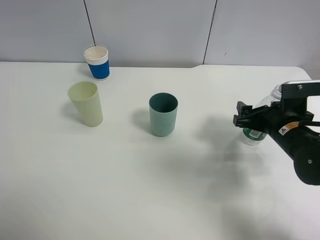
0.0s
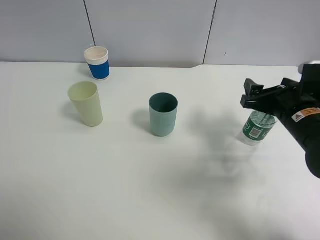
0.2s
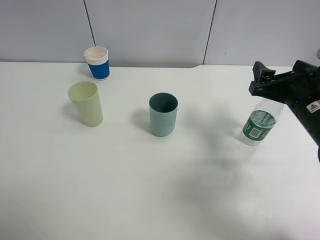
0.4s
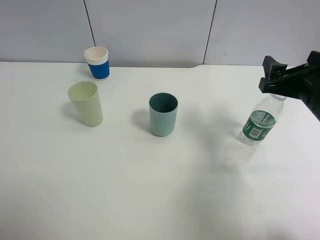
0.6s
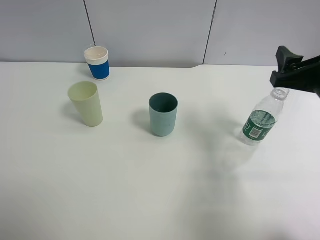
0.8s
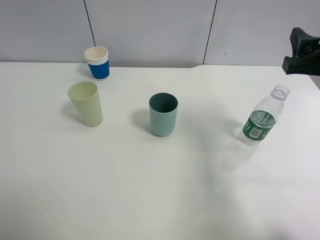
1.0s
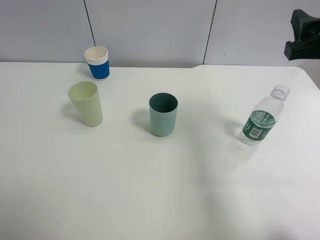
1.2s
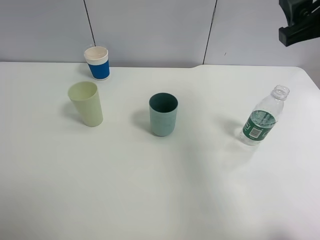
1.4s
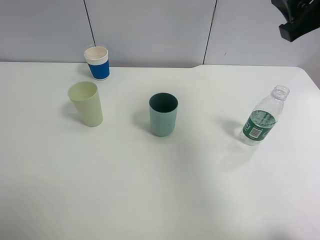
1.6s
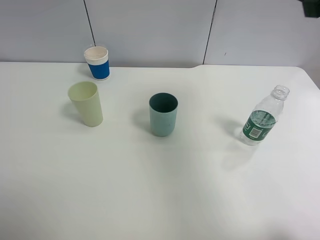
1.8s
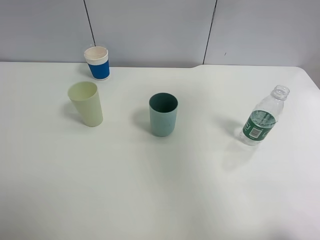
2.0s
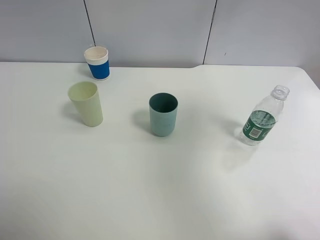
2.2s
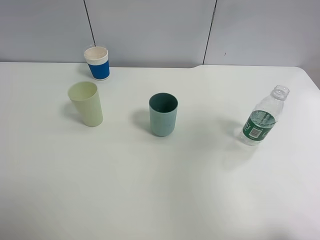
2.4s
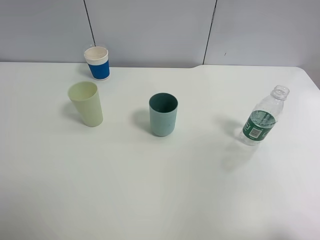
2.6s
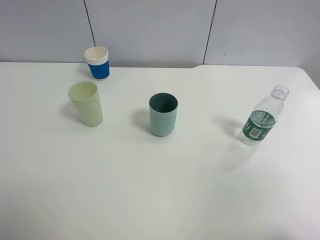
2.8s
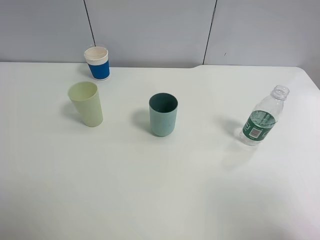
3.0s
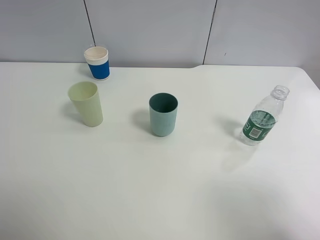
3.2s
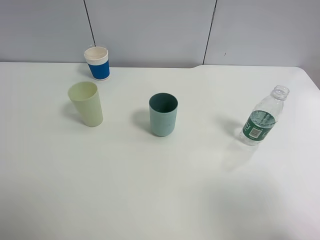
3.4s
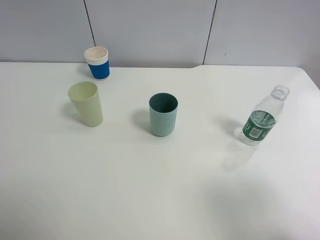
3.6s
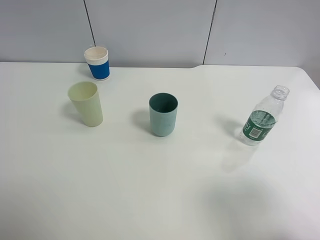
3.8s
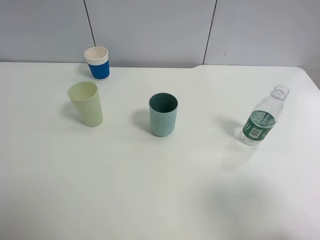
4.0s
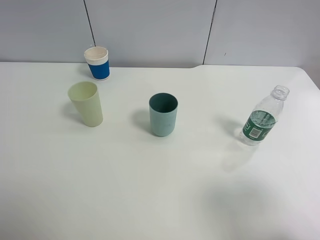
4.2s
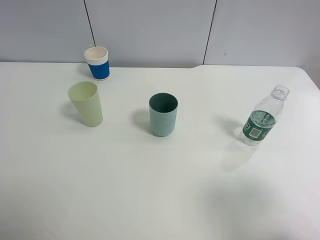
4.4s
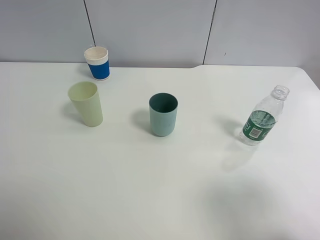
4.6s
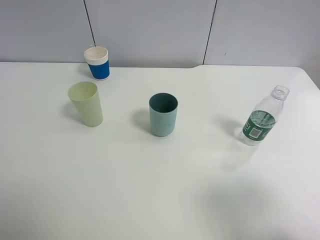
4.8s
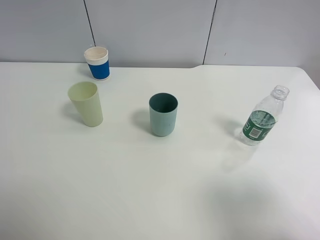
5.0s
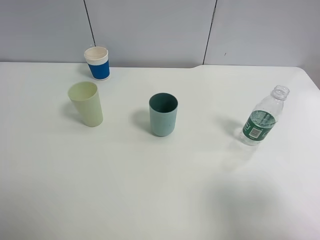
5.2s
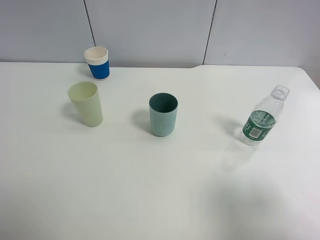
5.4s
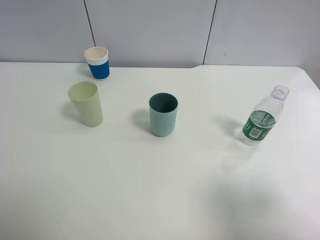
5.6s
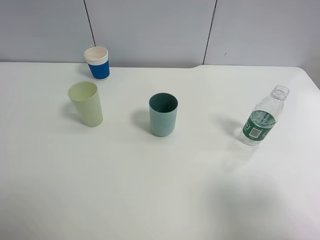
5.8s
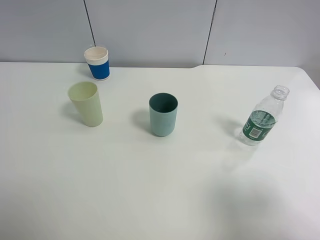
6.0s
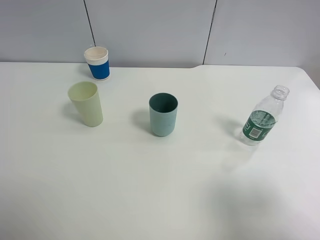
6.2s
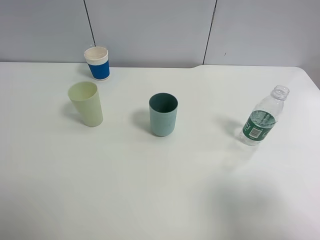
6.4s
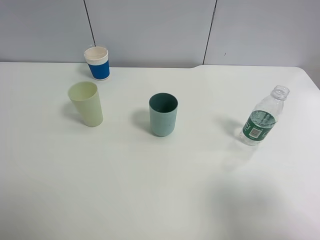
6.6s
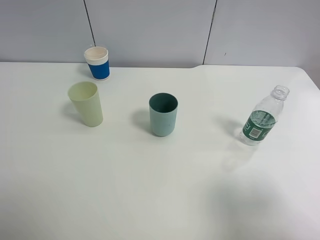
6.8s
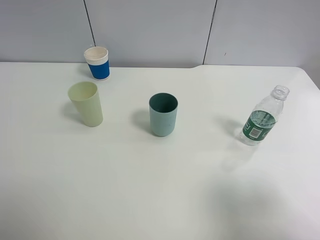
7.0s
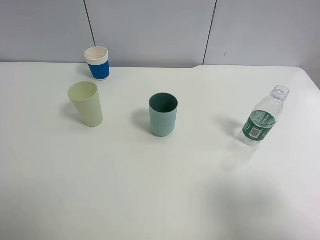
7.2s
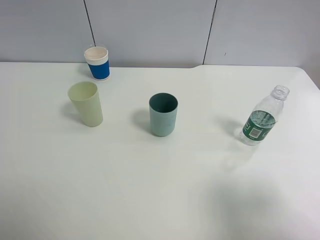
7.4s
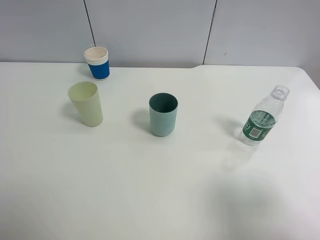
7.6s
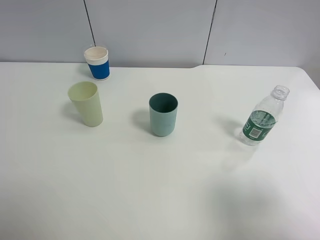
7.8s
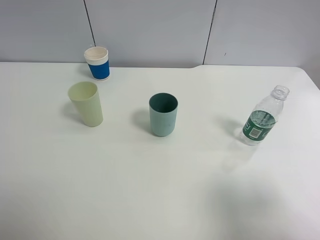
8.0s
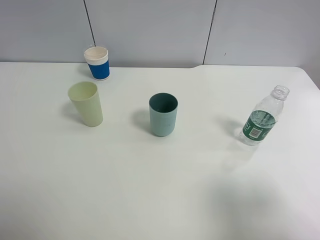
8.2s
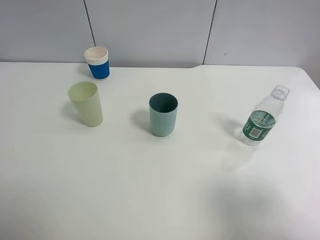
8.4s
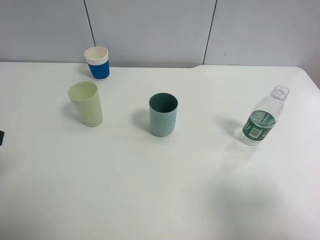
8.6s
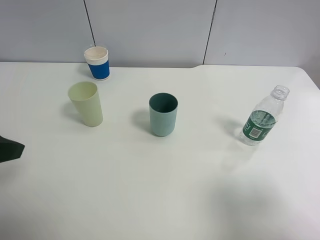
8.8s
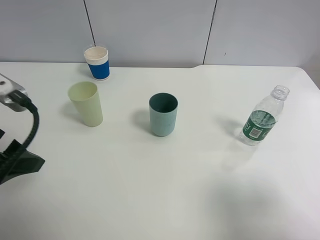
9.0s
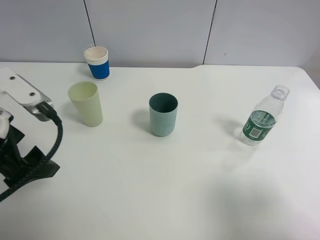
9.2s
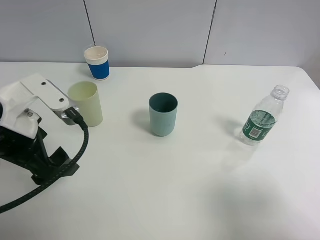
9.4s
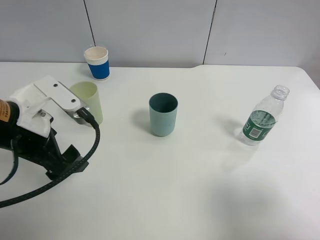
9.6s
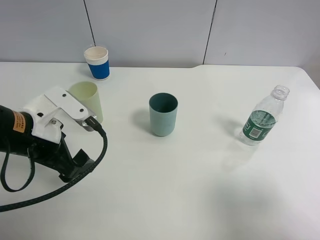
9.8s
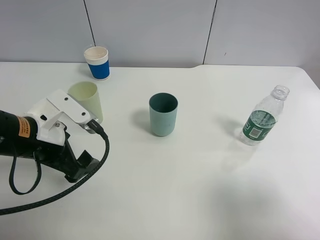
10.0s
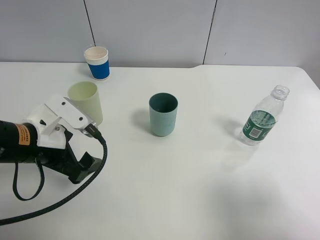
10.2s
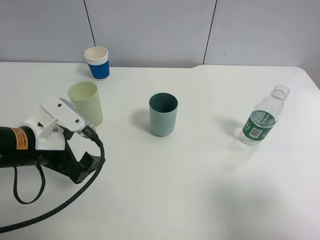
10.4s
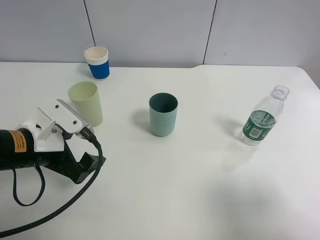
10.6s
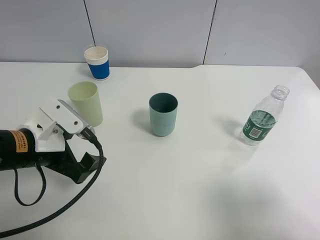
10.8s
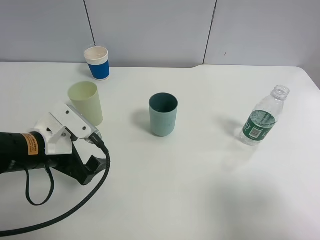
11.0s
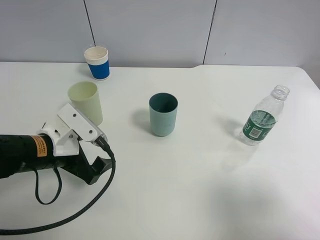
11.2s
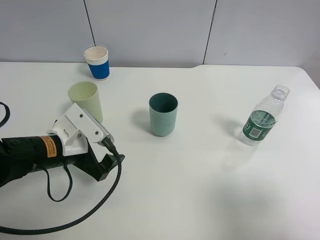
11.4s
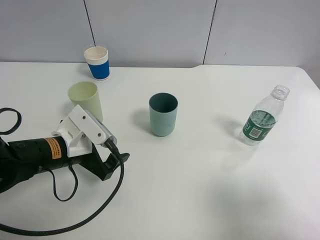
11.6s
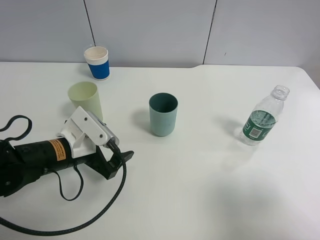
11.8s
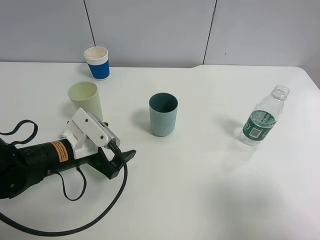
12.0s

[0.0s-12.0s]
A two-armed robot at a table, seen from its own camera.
Task of the whole recording: use a clamp to hold the bottle of the drink, pour the beverage into a random cup, then clamp the cup containing the drink and pour the drink into another random cup.
0.0s to 1.6s: The right gripper shifts some 25 cm upward.
1.6s to 3.0s: The right gripper shifts about 30 cm backward and to the right.
6.0s to 7.6s: Both grippers stay put.
7.6s to 9.0s: The left gripper is displaced forward and to the right by about 15 cm.
9.0s to 10.4s: The left gripper shifts some 10 cm downward.
10.4s to 12.0s: The left gripper moves downward, roughly 5 cm.

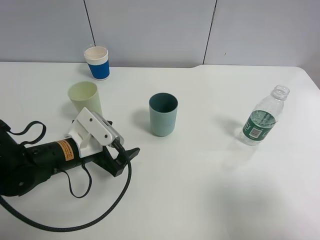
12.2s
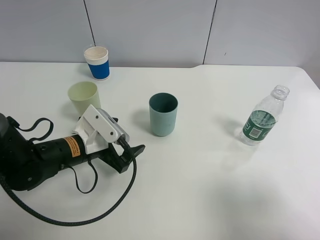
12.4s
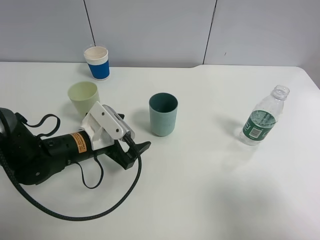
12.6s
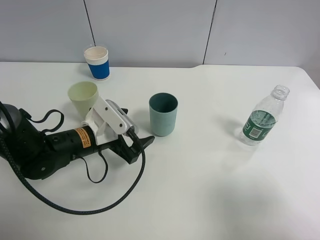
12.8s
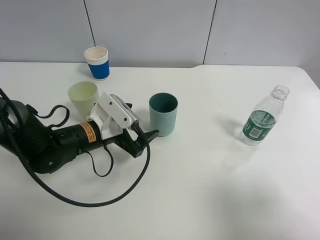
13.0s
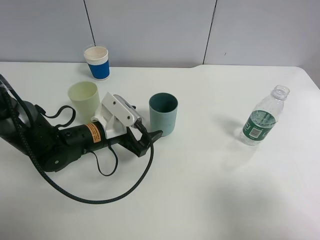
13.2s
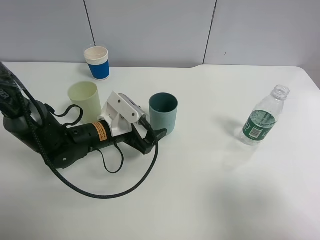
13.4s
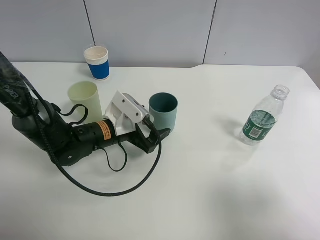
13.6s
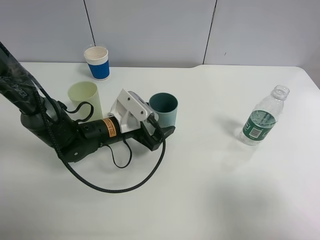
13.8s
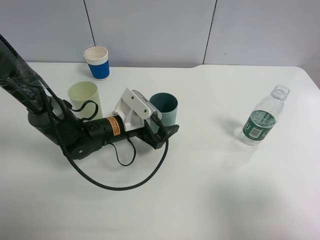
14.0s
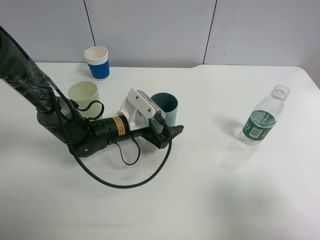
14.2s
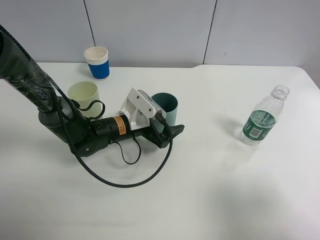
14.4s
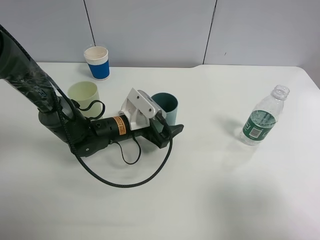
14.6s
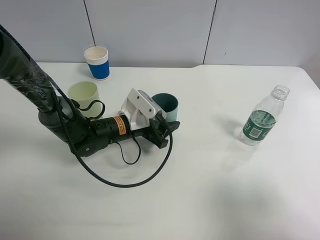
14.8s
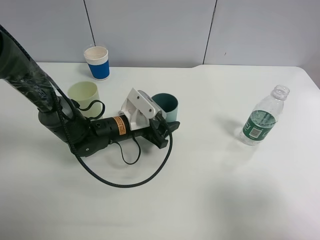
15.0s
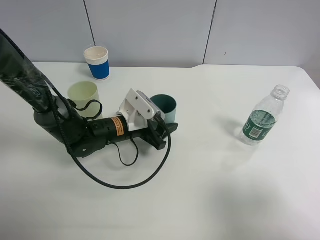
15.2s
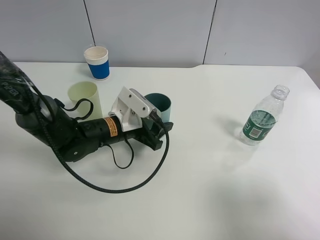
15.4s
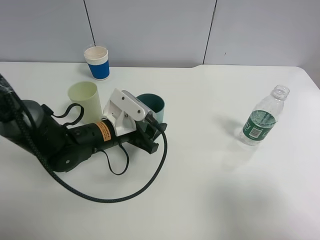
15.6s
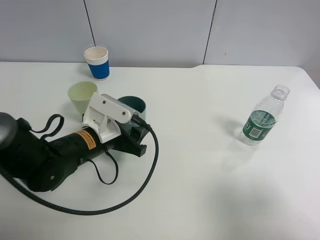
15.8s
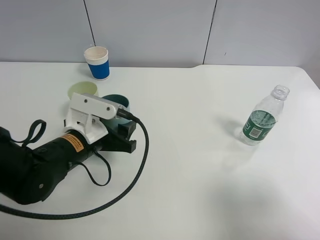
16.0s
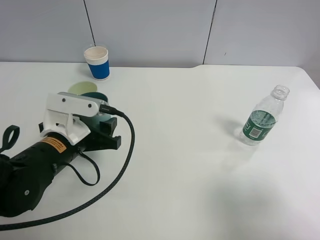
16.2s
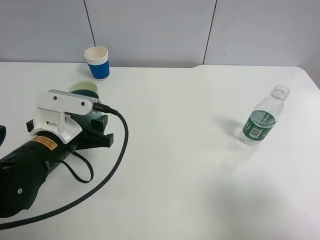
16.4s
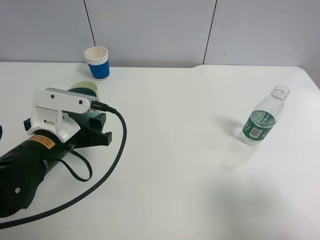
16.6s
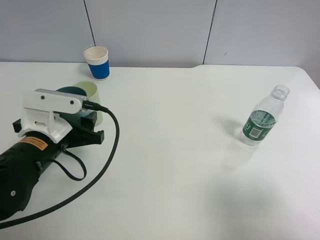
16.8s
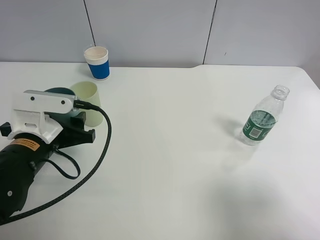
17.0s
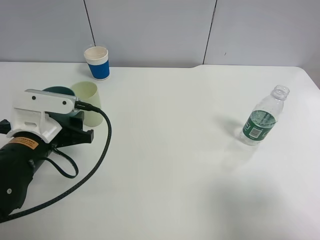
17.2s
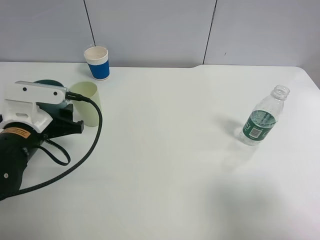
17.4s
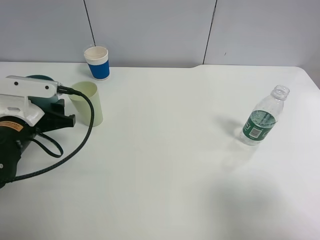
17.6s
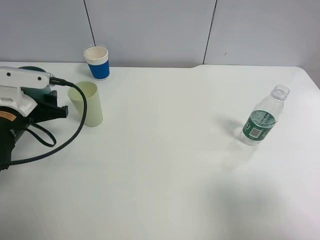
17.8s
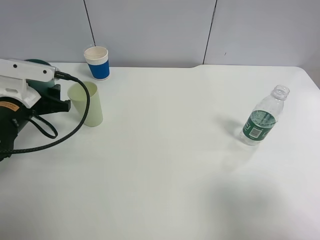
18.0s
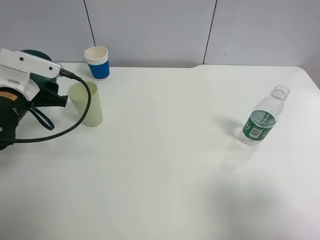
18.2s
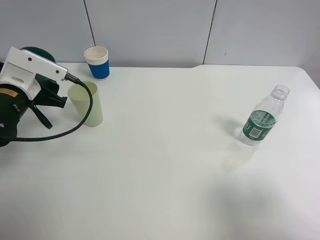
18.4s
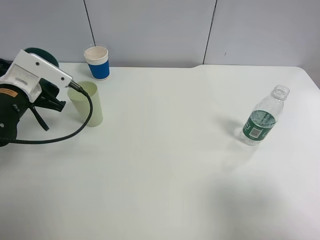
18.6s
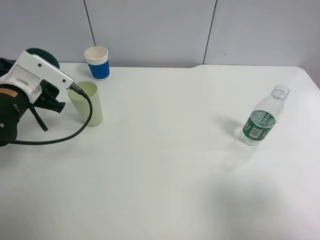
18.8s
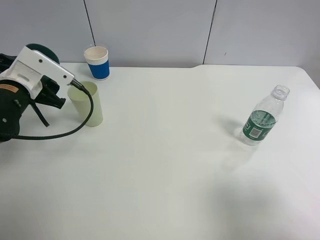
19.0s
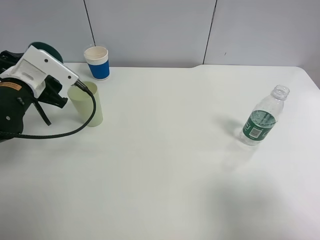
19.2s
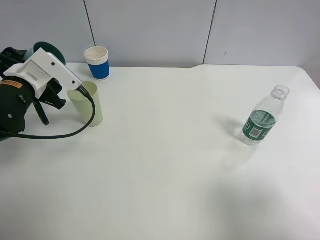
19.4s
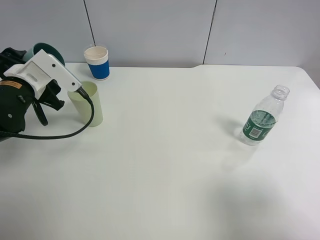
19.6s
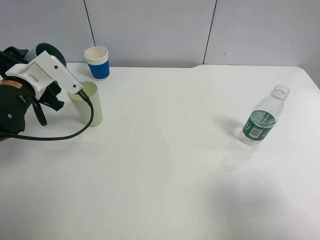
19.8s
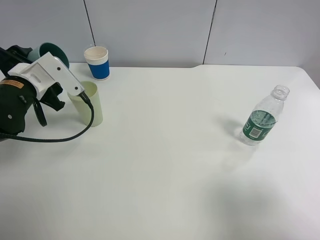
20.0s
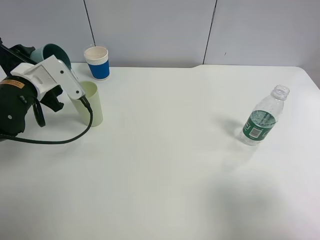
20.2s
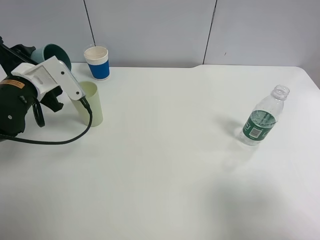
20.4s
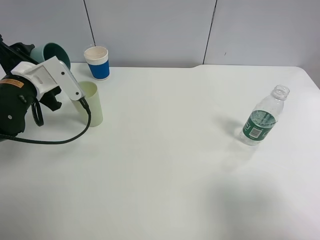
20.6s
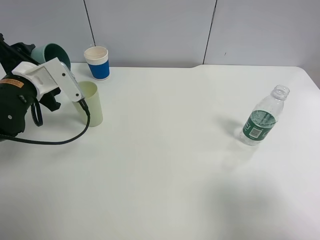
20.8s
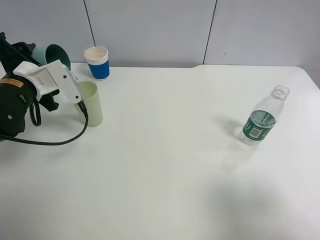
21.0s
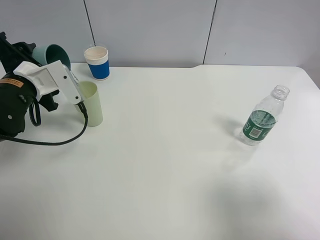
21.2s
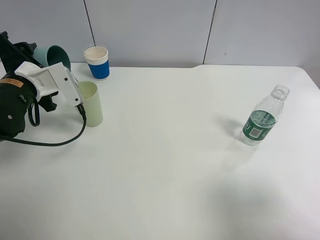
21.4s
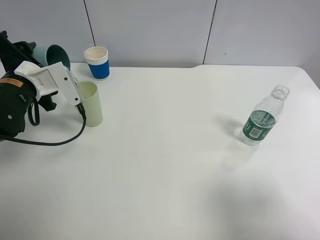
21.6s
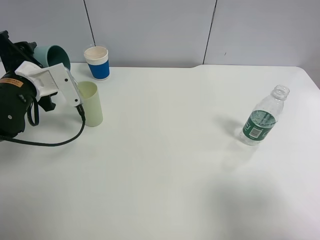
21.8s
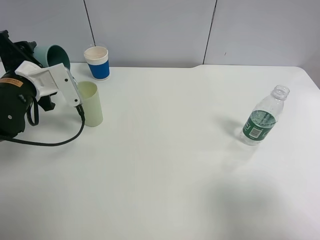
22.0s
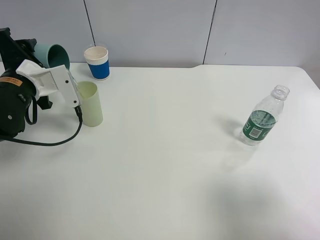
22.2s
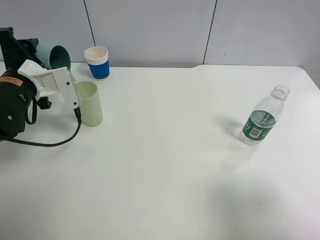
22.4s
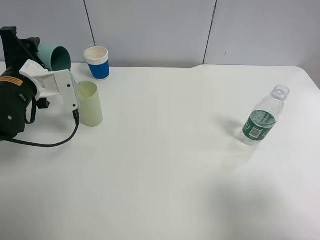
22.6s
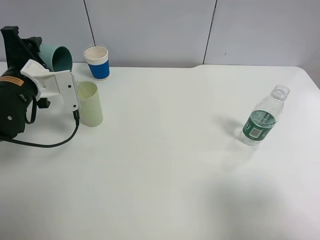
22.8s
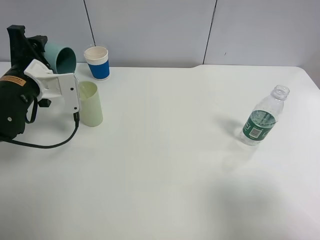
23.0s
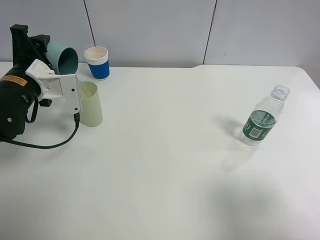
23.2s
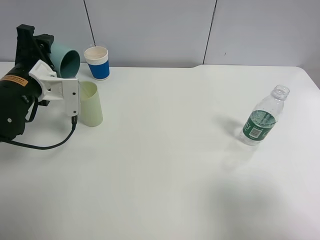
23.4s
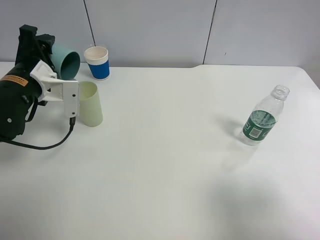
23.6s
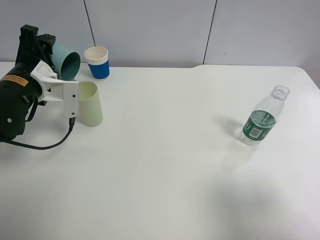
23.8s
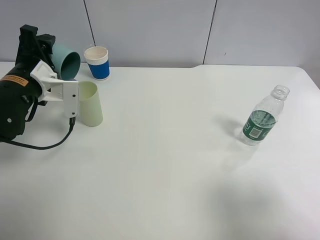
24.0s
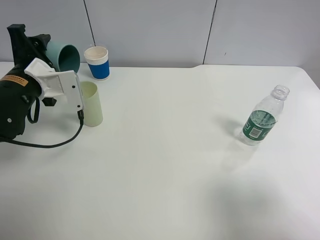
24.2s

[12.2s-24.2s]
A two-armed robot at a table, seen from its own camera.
Task of the whole recording: use a clamp to hold the bottle of the drink, pour the beverage into a random cup, then clamp the cup containing the drink and pour the drink into another random cup.
Step, 12.2s to 16.4s: Pick up the blue plastic cup bottle with left gripper.
12.2s to 13.8s: The left gripper moves forward and to the right, roughly 10 cm.
13.8s to 15.2s: The left gripper closes up.
15.2s to 16.6s: The left gripper travels backward, to the left and upward by about 15 cm.
16.6s to 18.2s: The left gripper moves to the left and forward, approximately 10 cm.
19.8s to 21.2s: The grippers make only small movements.
21.2s to 22.6s: The grippers move only a little.
22.6s to 24.2s: The grippers move only a little.
